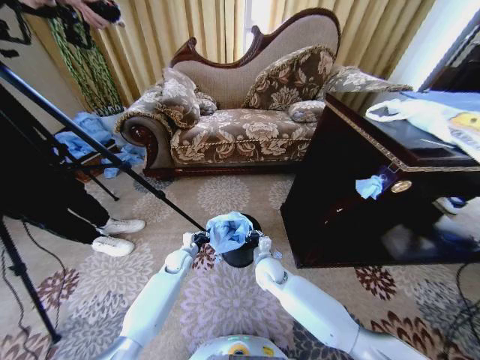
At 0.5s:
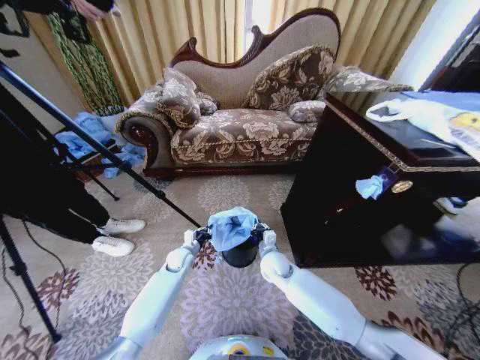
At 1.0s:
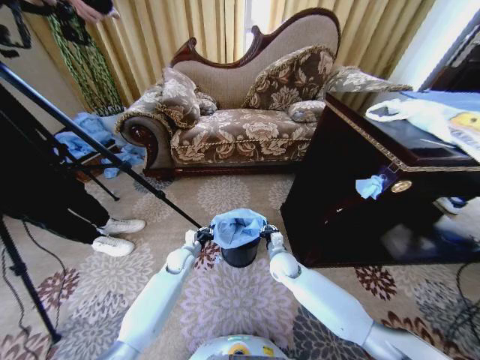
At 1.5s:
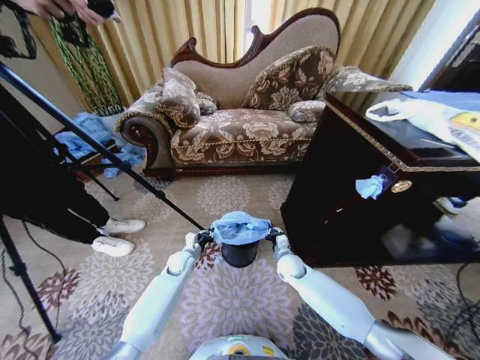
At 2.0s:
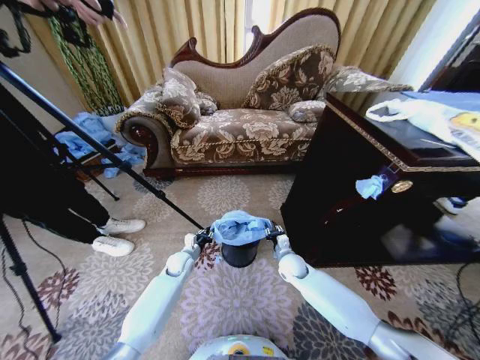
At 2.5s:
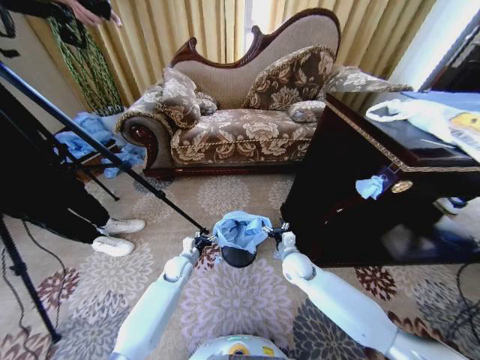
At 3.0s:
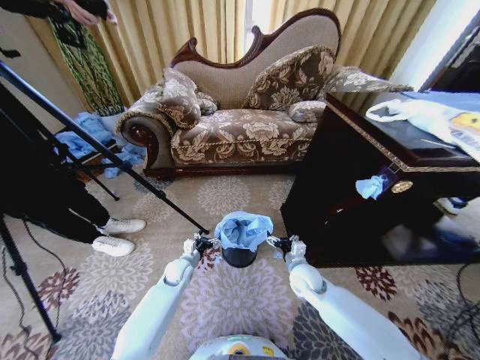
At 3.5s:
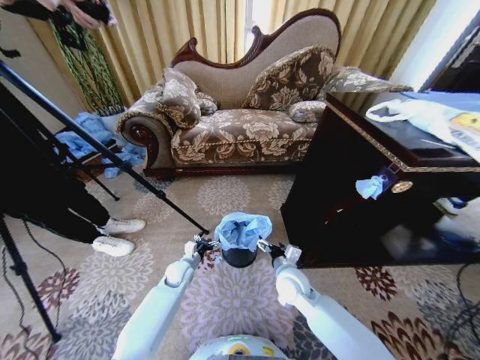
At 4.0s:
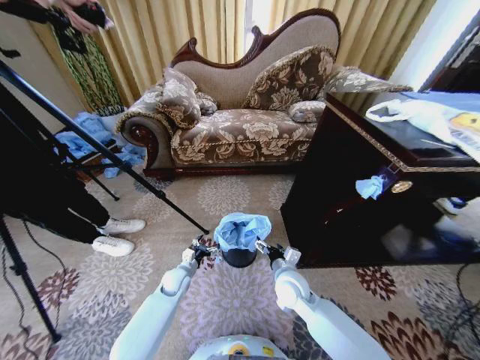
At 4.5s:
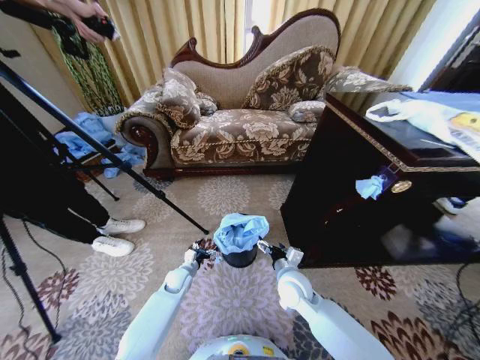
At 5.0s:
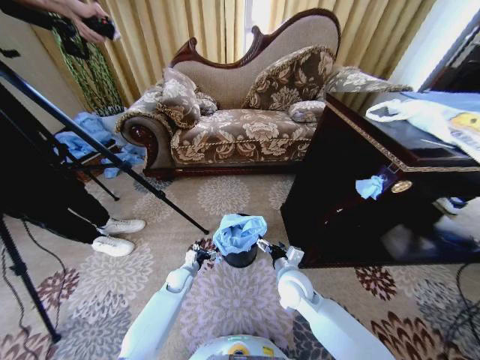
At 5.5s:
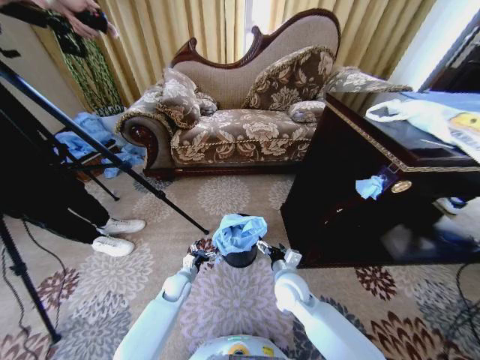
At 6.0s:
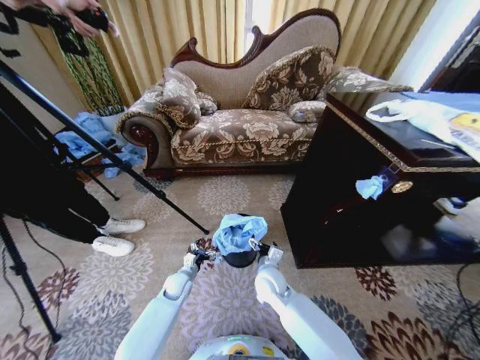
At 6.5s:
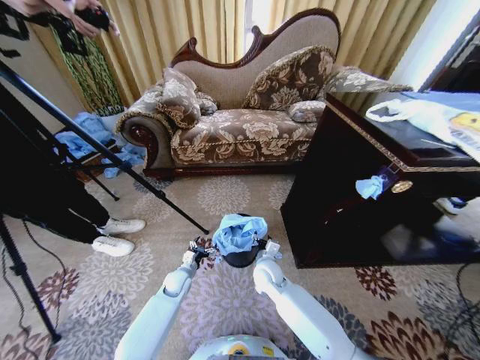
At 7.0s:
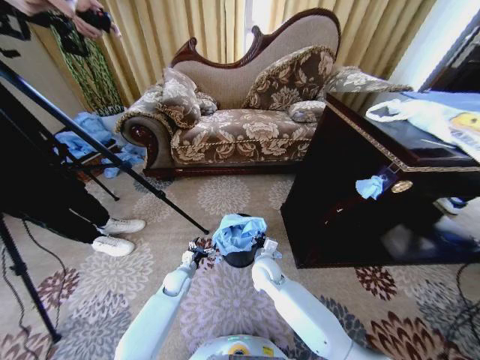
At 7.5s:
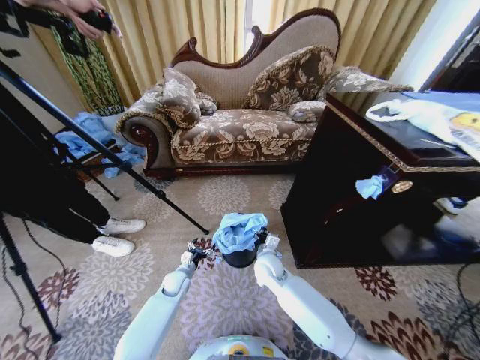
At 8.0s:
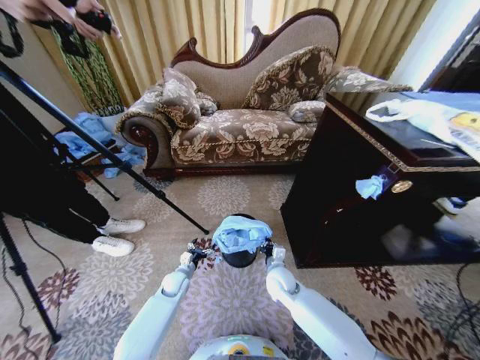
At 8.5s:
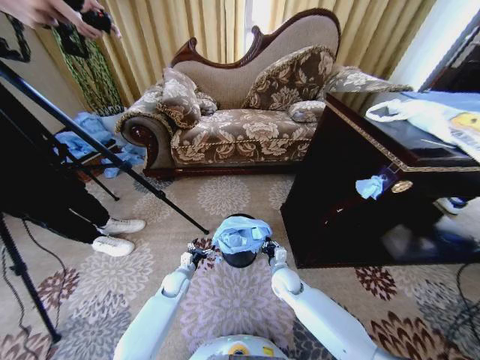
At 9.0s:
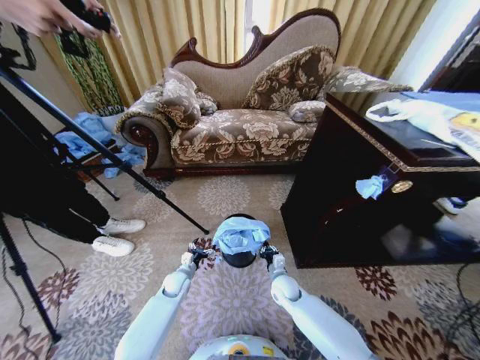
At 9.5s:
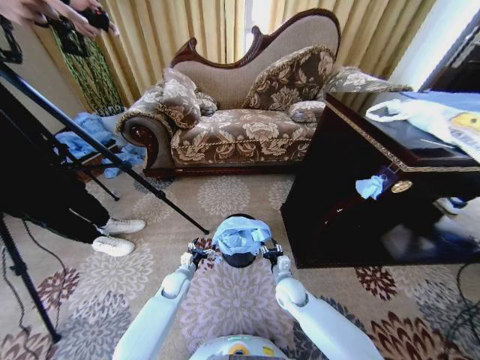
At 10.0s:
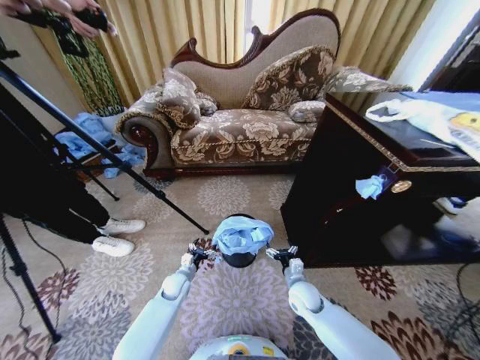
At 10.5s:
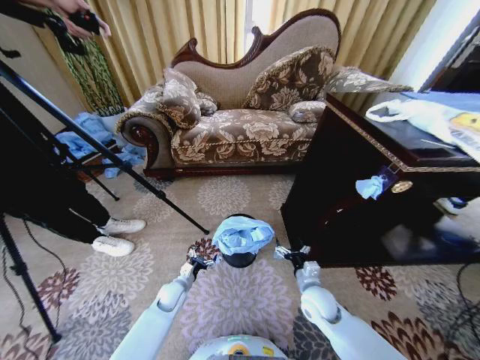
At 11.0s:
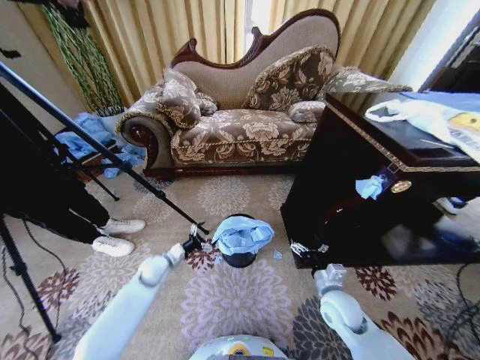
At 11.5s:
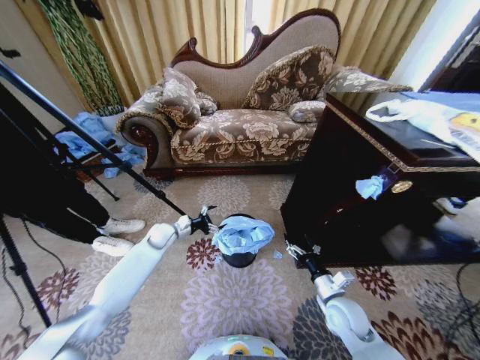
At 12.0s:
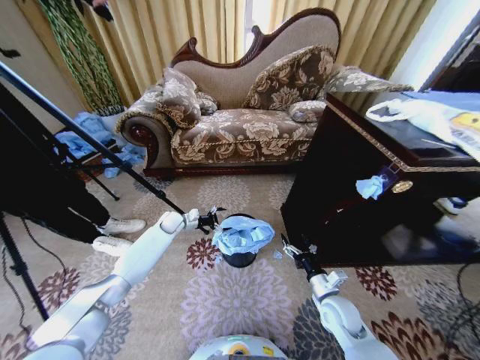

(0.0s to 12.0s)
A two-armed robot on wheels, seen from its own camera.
Task of the whole recording: Place a garbage bag over the trash bin.
0.0s - 2.0s: The right gripper moves to the right, roughly 10 cm.
2.0s - 4.0s: The right gripper travels backward and upward by about 15 cm, and opens. Meanwhile the left gripper shifts about 5 cm backward, and opens.
4.0s - 6.0s: The right gripper moves to the left, about 5 cm.
6.0s - 8.0s: The right gripper shifts by roughly 5 cm, and closes.
8.0s - 10.0s: The right gripper goes some 10 cm to the right, and opens.
10.0s - 12.0s: The left gripper heads forward and upward, covering some 25 cm, while the right gripper is displaced to the right and backward by approximately 10 cm.

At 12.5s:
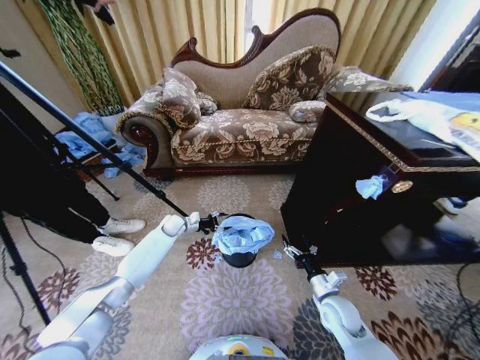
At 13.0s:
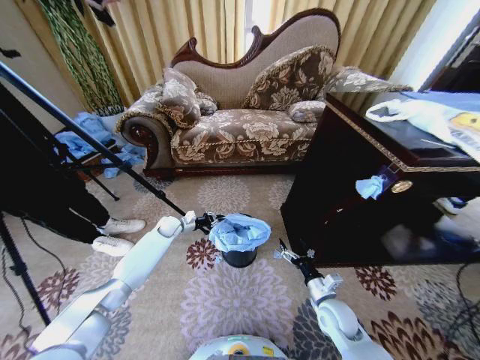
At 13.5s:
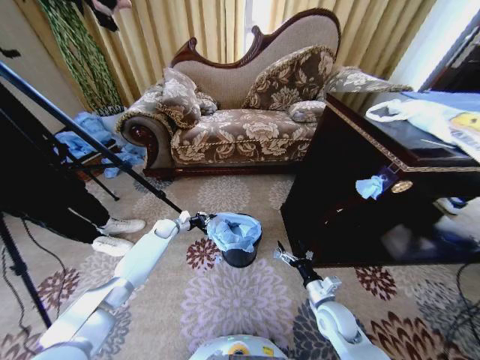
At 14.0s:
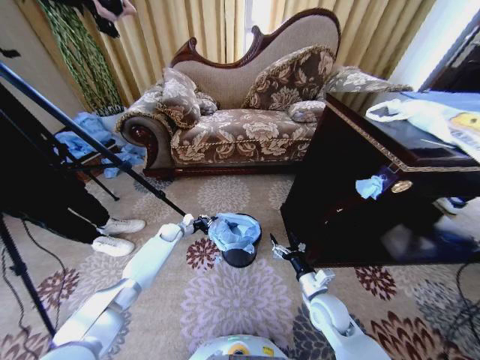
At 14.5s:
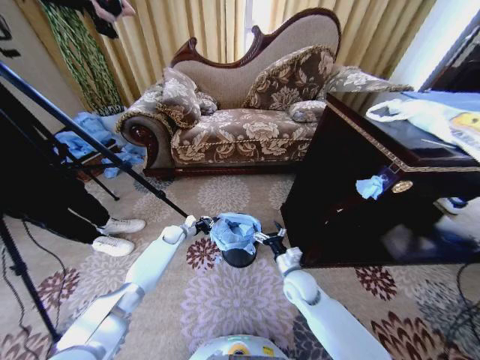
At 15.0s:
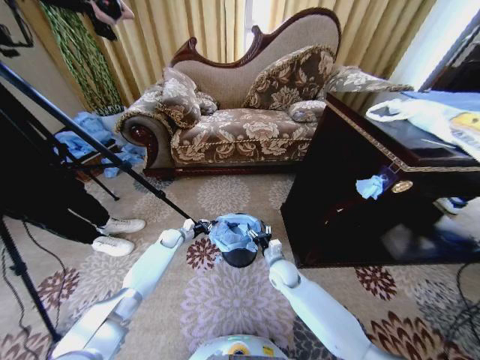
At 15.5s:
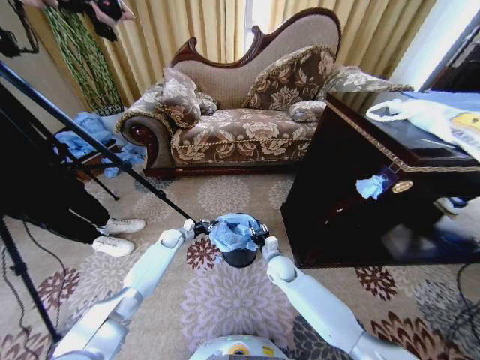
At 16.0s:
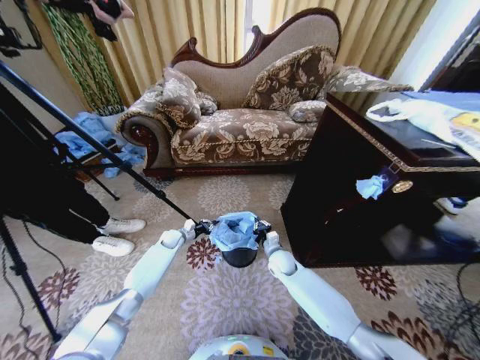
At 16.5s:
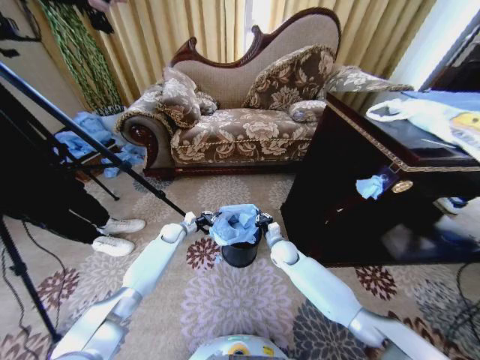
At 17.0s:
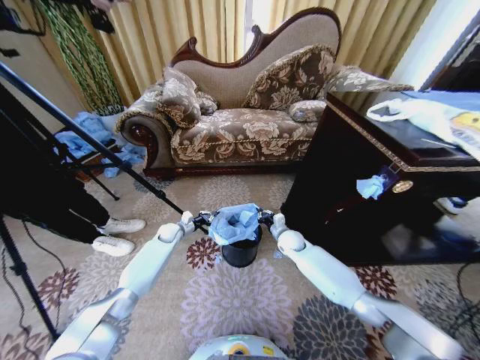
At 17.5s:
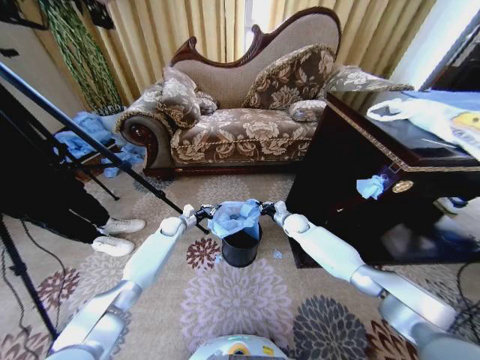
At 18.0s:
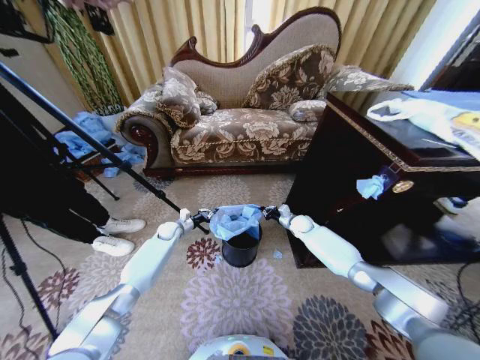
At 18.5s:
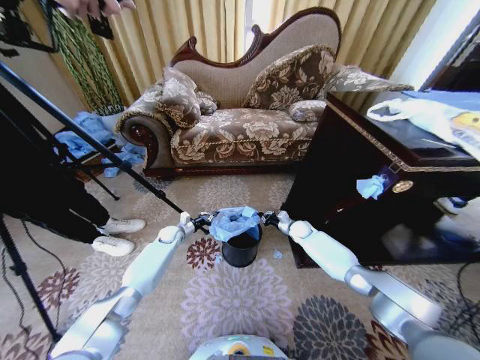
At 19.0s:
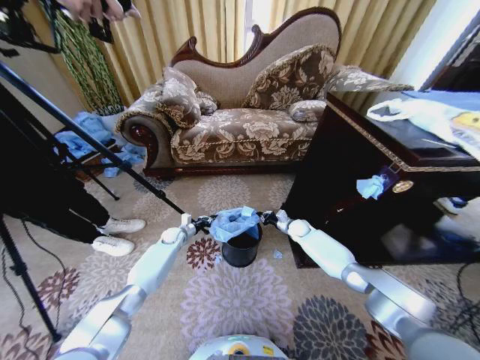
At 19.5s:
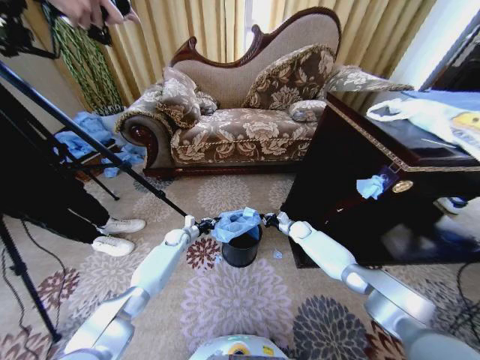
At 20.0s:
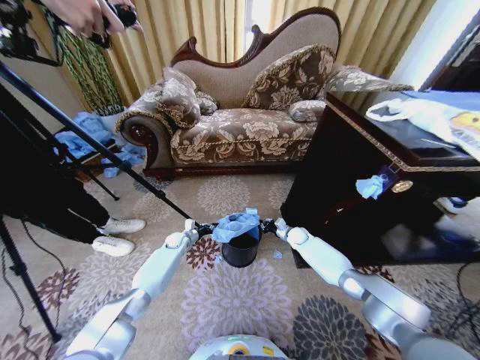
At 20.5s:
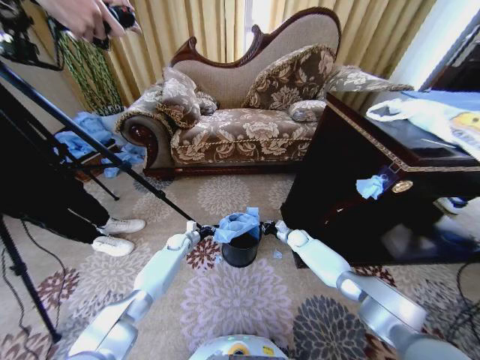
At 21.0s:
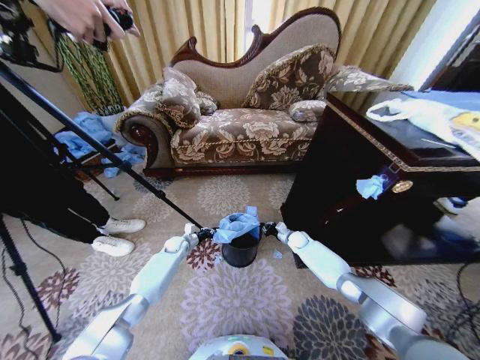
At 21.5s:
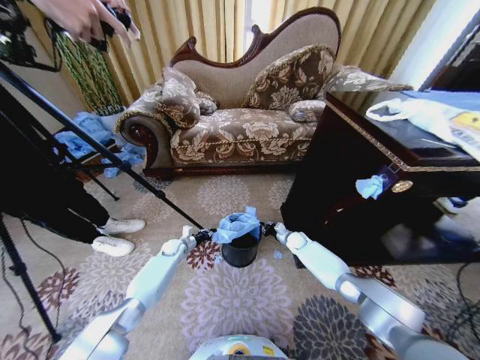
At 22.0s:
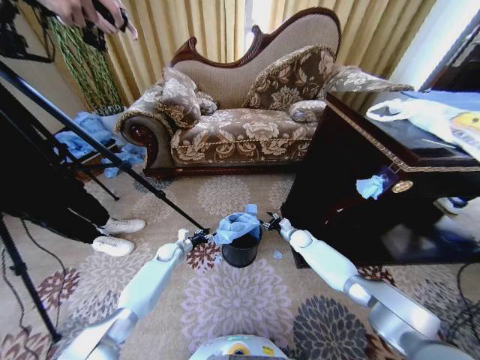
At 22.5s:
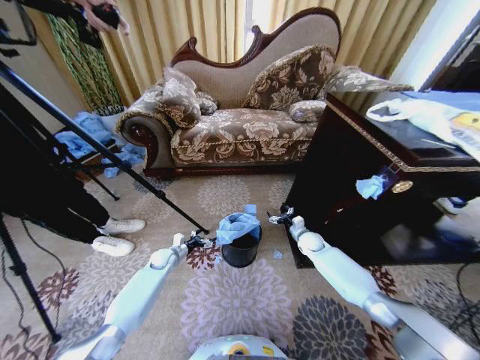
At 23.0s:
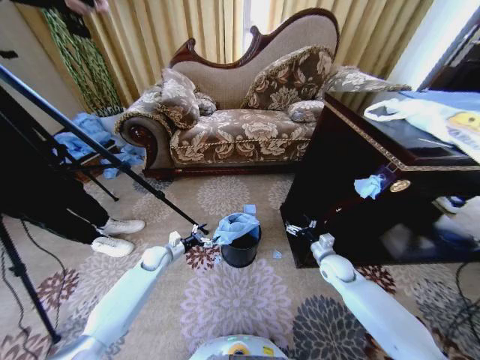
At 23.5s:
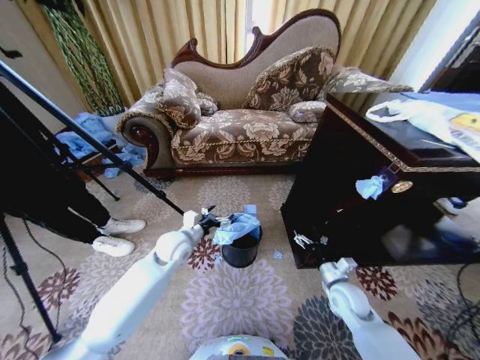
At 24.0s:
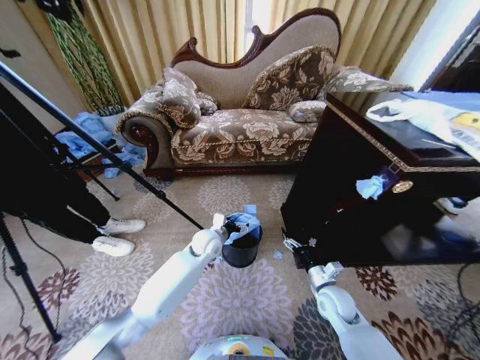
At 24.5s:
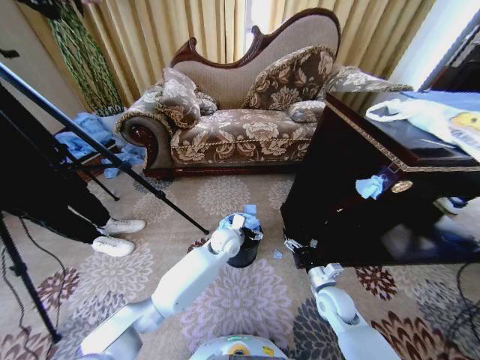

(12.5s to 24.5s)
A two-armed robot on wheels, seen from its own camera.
Task of the whole recording: Place a garbage bag over the trash bin.
12.5s - 14.5s: The left gripper travels downward by roughly 5 cm, and closes. The right gripper travels to the left and forward by about 10 cm.
14.5s - 16.5s: The right gripper goes about 10 cm forward, and closes up.
16.5s - 18.5s: The right gripper heads forward and to the right, covering roughly 15 cm.
18.5s - 20.5s: The left gripper moves some 5 cm. Meanwhile the right gripper shifts by about 5 cm.
20.5s - 22.5s: The left gripper moves backward, about 10 cm, and opens. The right gripper changes place by about 5 cm, and opens up.
22.5s - 24.5s: The right gripper shifts approximately 20 cm backward, while the left gripper goes some 30 cm to the right and upward.

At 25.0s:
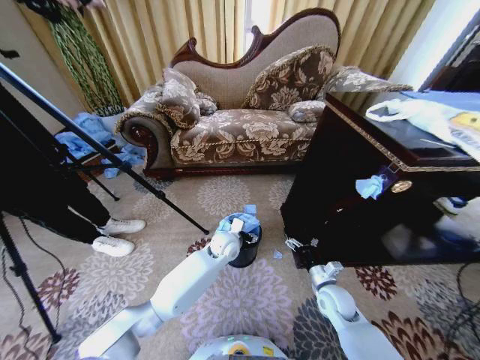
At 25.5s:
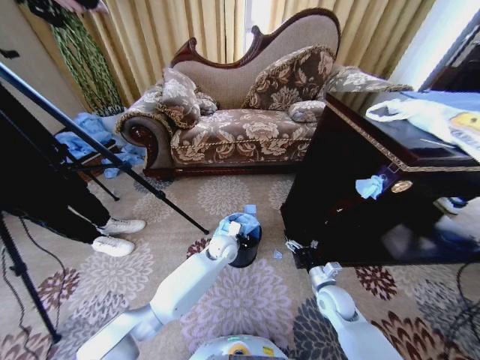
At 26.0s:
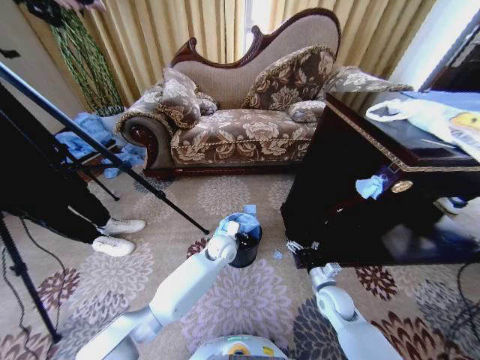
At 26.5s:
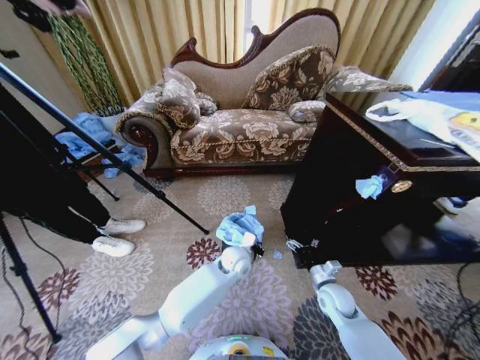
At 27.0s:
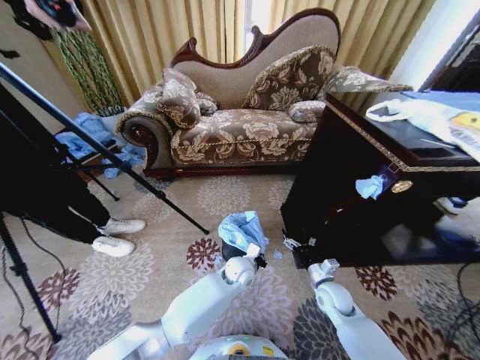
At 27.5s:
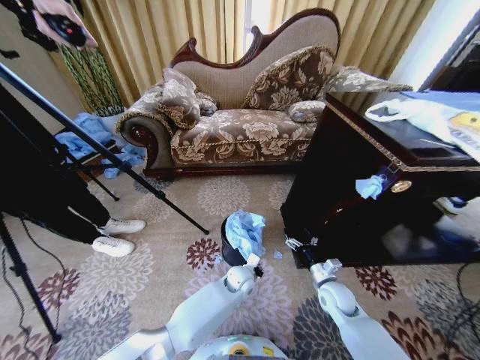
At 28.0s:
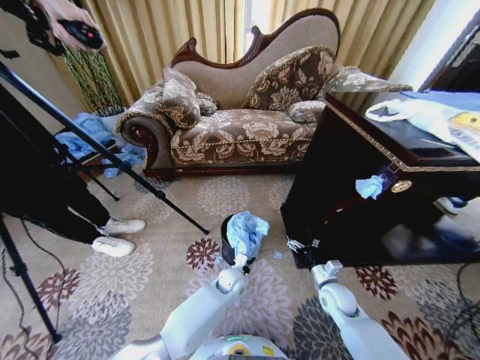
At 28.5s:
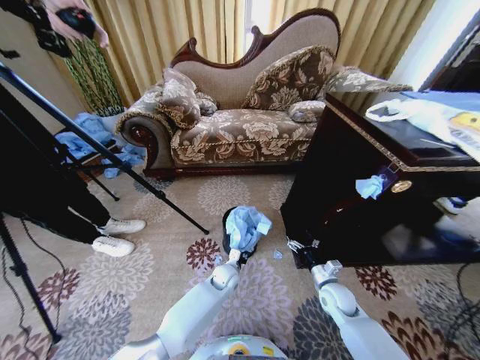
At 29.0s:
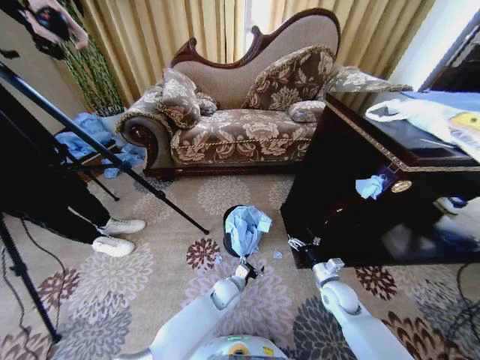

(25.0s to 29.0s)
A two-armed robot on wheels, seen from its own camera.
Task of the whole recording: Place a garbage bag over the trash bin.
25.0s - 27.0s: The left gripper heads backward, downward and to the right, covering about 10 cm, and closes its fingers.
27.0s - 29.0s: The left gripper shifts some 10 cm downward, and opens up.
